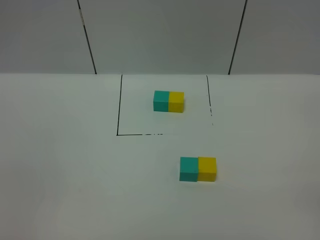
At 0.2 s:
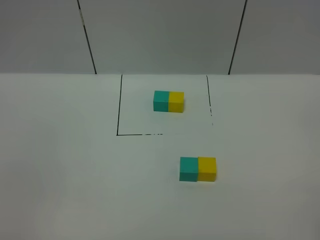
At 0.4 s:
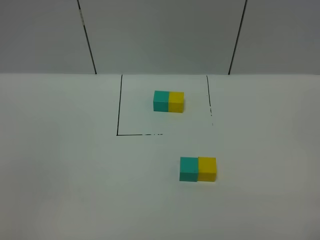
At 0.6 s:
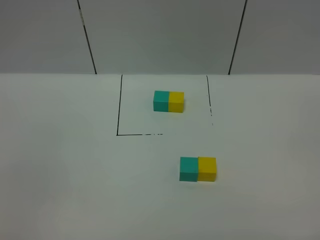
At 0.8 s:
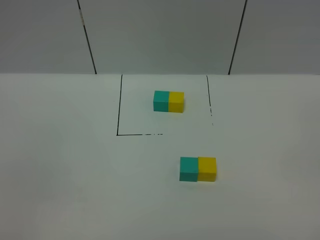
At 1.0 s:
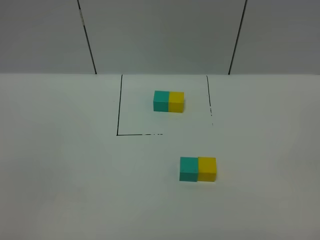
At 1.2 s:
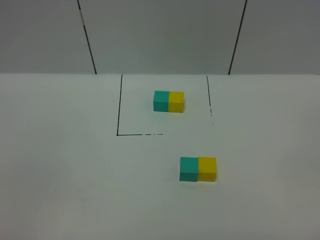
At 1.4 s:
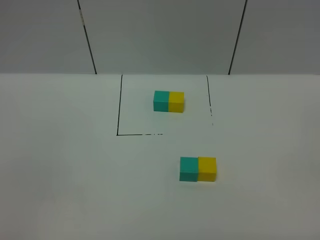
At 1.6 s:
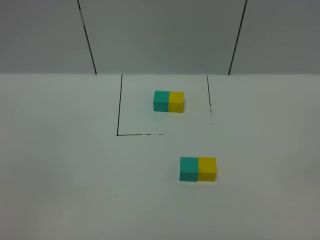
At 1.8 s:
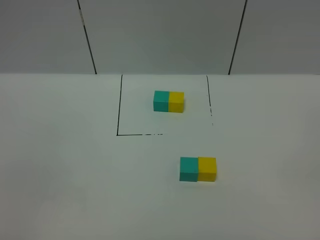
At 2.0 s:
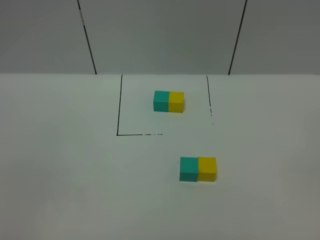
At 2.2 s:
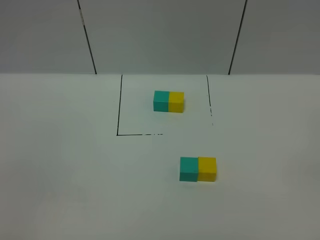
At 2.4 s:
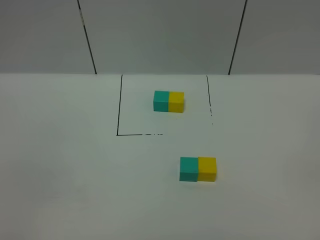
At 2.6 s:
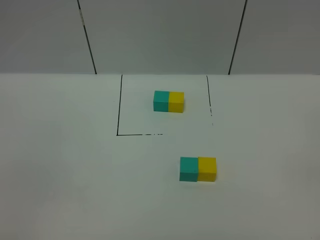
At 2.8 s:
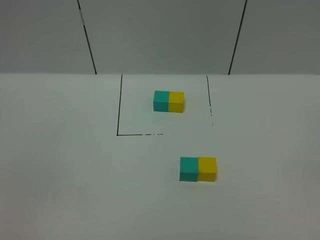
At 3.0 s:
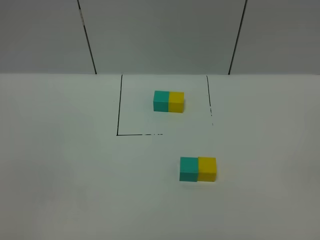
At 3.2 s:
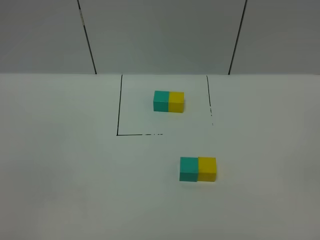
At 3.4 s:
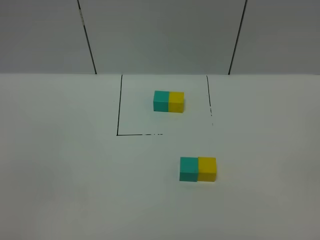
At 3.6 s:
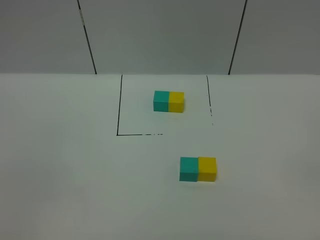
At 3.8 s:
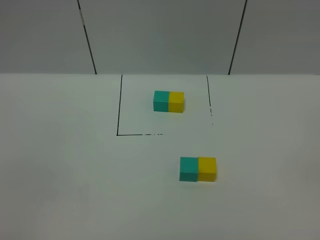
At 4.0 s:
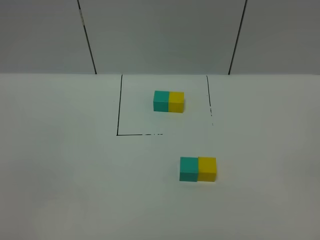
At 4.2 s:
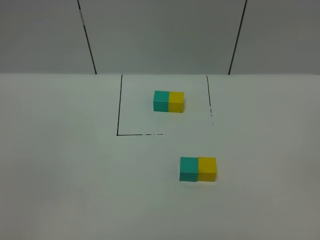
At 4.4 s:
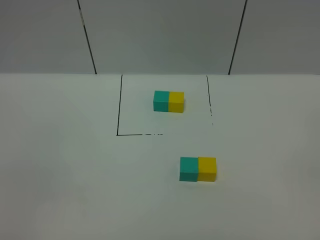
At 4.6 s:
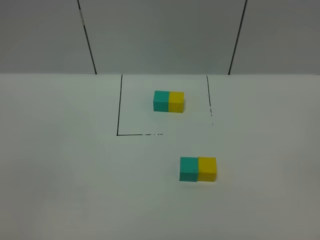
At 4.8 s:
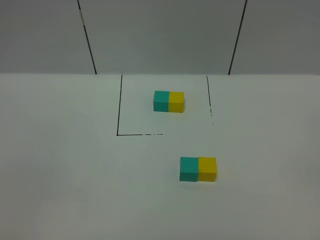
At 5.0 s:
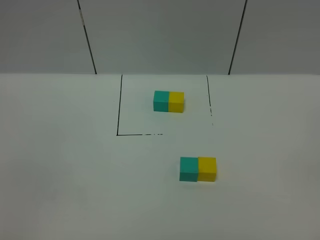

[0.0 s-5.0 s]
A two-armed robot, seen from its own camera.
Task of the whole recording: According to the building block template in front, assemble the scattered blocks together.
3.4 to 5.0 s: Both grippers stay put.
